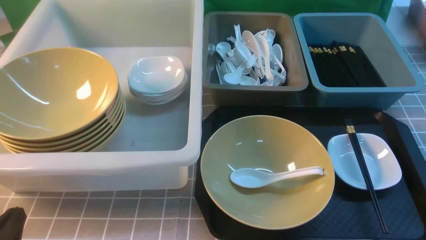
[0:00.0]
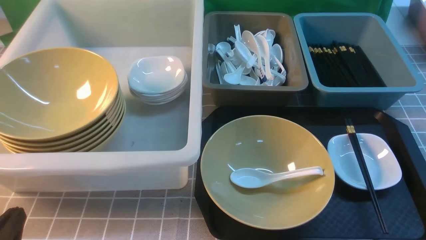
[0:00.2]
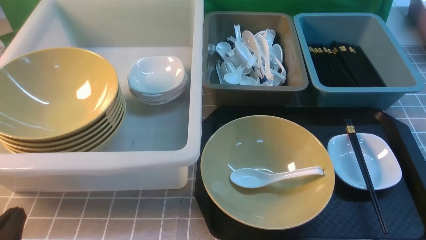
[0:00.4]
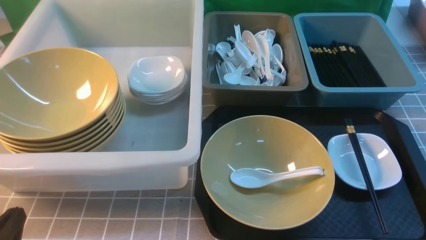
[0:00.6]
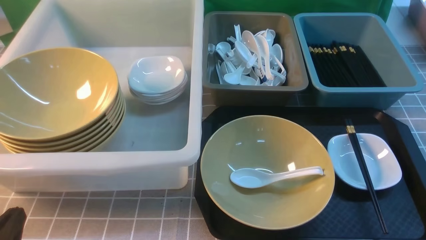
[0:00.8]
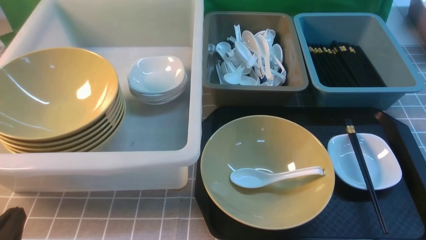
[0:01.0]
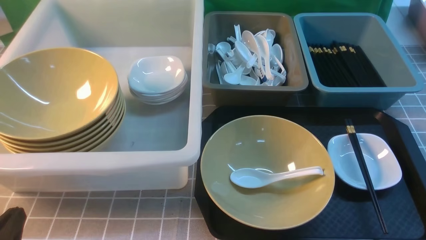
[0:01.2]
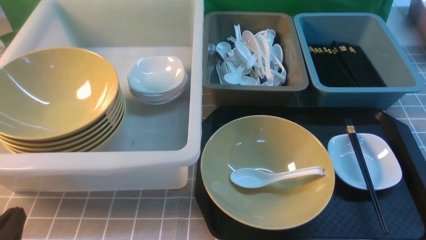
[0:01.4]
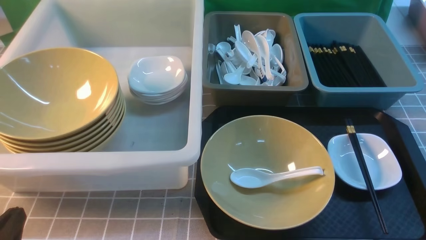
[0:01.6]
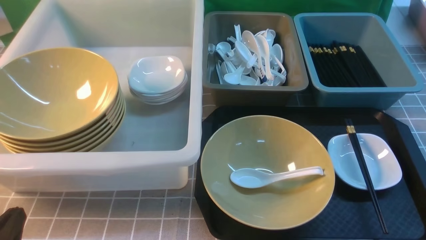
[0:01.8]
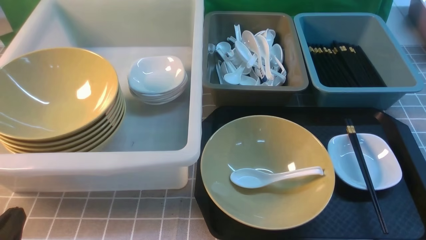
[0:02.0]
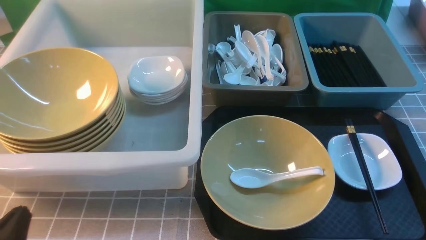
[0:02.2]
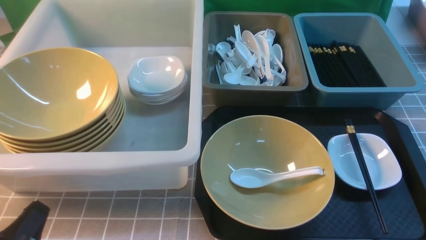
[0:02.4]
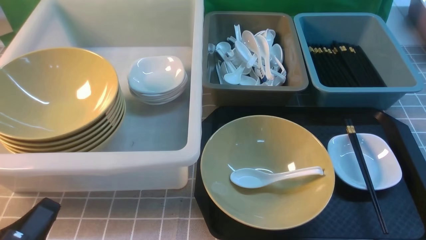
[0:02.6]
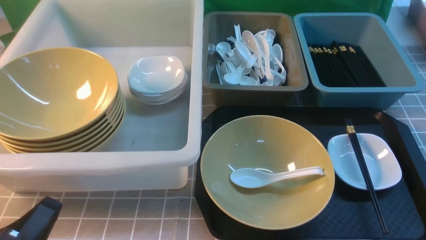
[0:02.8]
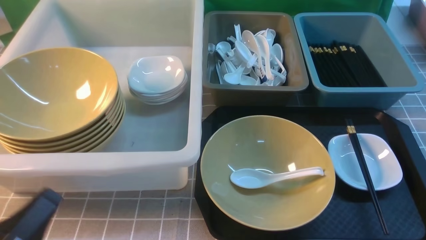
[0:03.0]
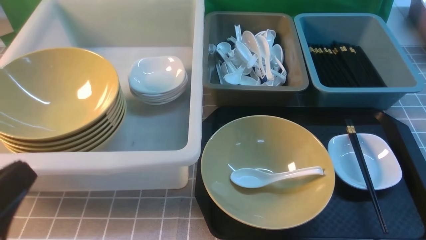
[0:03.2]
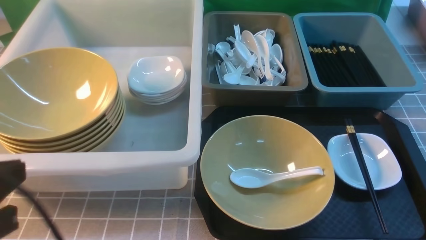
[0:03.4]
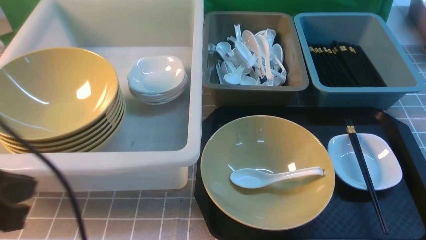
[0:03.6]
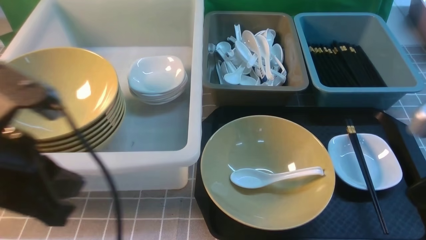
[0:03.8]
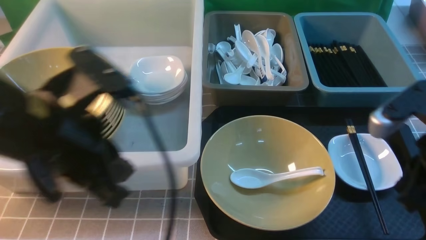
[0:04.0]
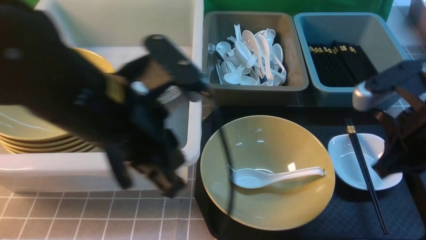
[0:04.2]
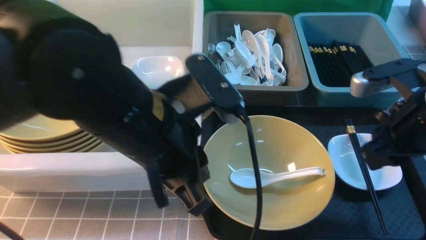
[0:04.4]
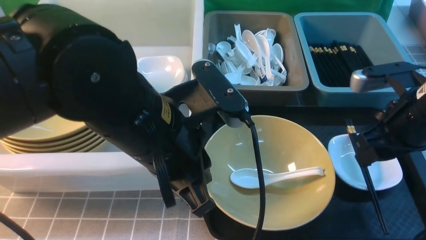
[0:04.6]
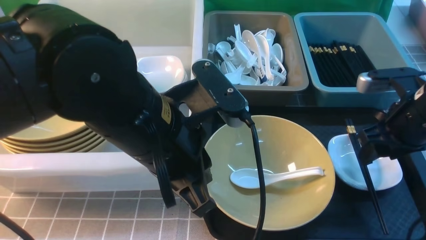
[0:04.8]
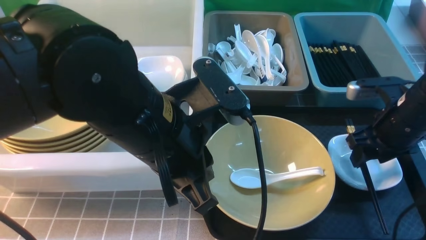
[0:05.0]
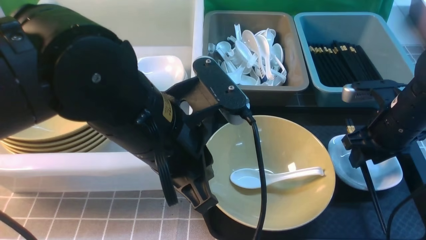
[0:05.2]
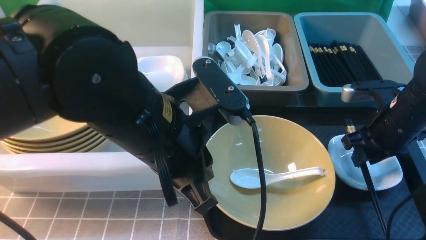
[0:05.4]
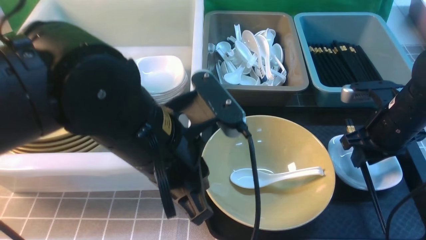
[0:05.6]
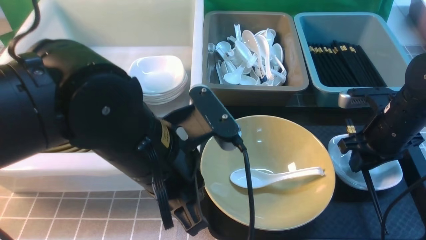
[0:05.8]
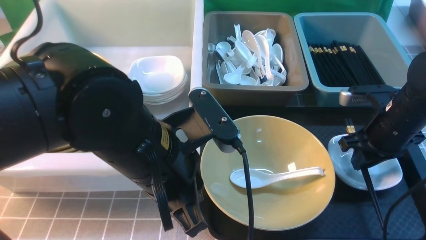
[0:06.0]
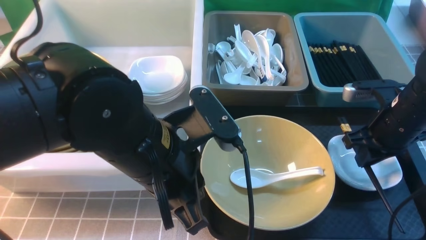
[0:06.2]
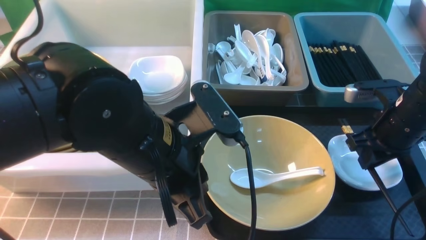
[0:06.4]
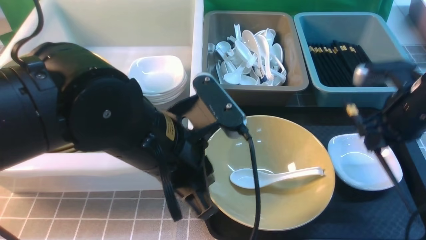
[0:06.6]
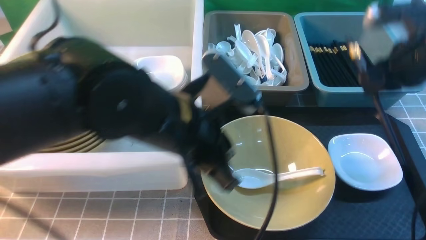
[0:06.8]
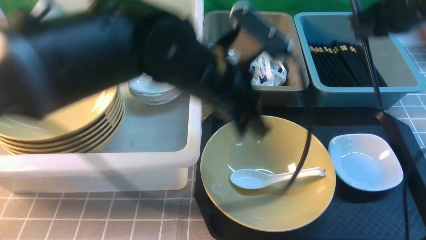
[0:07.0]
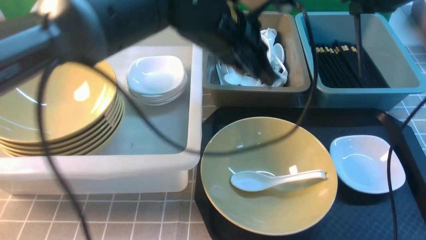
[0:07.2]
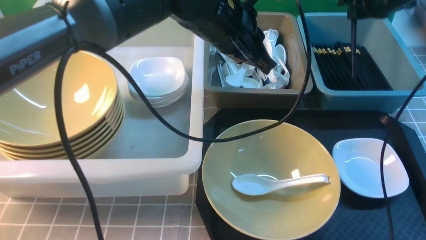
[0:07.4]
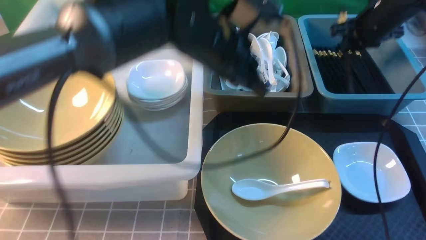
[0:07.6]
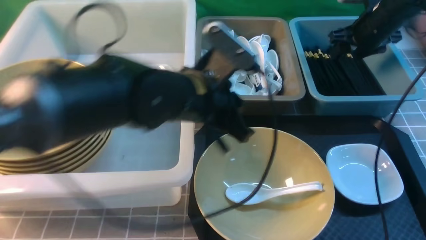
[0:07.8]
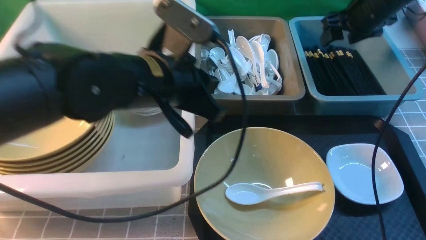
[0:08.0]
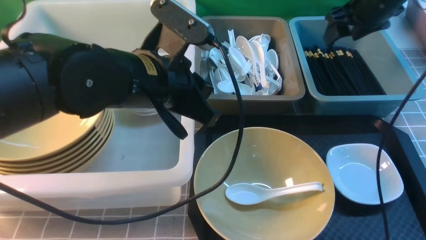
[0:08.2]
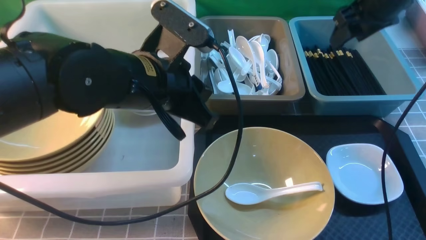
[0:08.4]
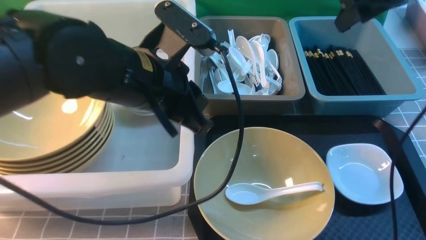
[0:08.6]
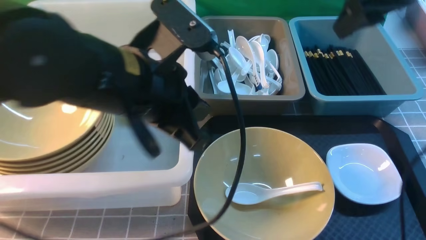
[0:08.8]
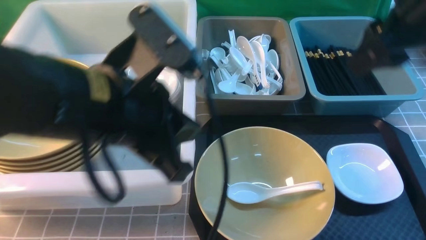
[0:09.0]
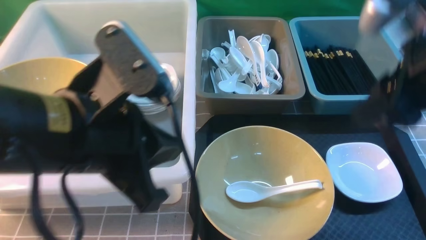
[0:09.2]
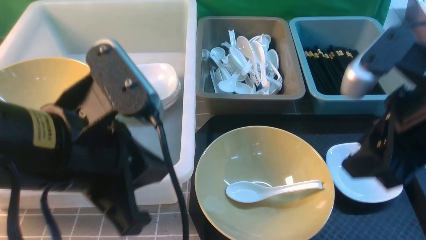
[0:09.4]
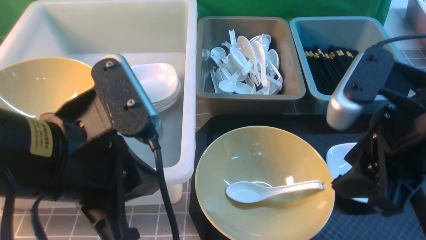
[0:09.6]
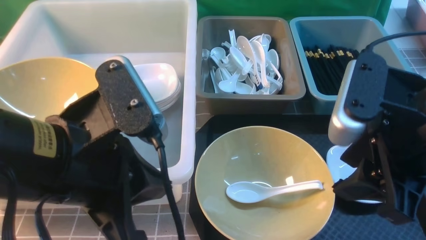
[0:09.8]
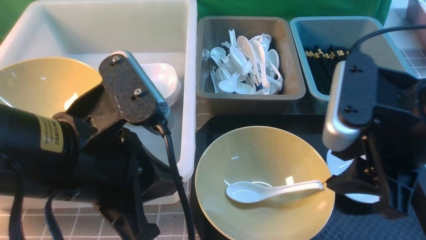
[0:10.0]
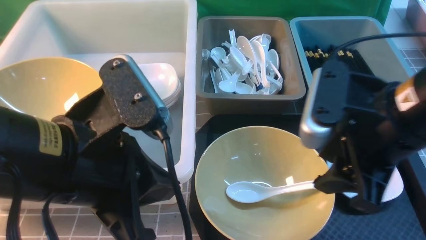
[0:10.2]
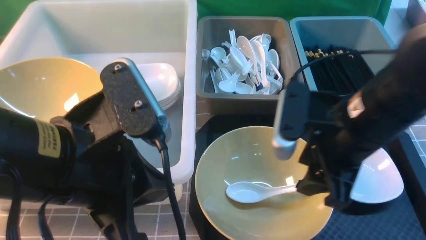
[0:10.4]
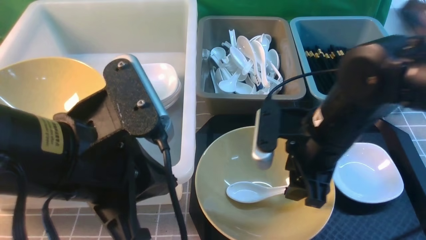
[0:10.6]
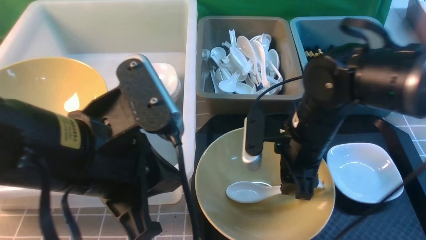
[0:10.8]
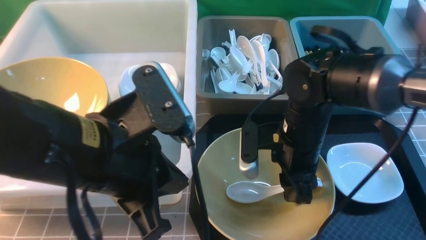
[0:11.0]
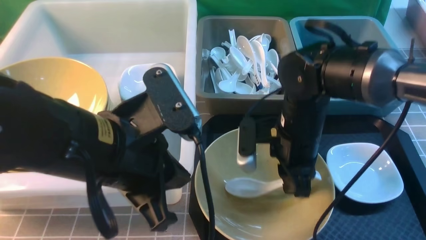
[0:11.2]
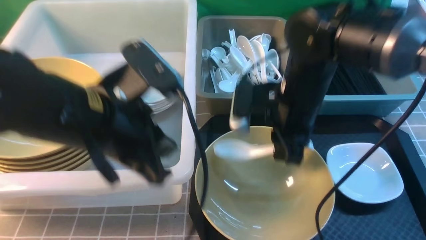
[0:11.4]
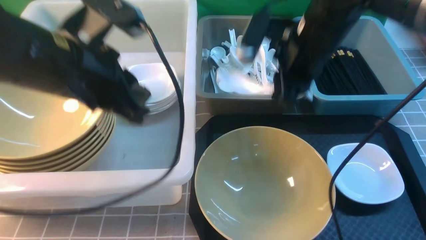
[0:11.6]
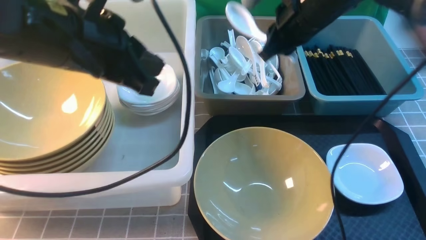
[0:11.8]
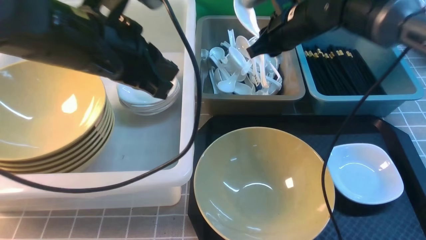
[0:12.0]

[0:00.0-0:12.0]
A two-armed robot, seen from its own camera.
Task of the whole recording: on grey table put chopsticks spoon bowls plates into blue grey white boxes.
Step, 0:00.0 to 0:06.4: use the right arm to grab the chopsticks.
Step, 0:06.6 to 0:07.8: use the right arm to put the chopsticks into the small storage box on the right.
Step, 0:08.0 to 0:11.6: use the right arm to grab the soup spoon in the middle.
0:00.0 to 0:01.6: The two grippers keep their place.
0:01.6 to 0:03.0: The left gripper shifts about 5 cm upward.
0:03.0 to 0:04.4: The left gripper travels to the right, forward and upward by approximately 25 cm. The right gripper goes about 20 cm forward, and closes and opens again.
0:04.4 to 0:06.0: The right gripper shifts some 10 cm downward and forward, and opens and closes again.
0:06.0 to 0:07.6: The right gripper is displaced forward and upward by about 20 cm; the left gripper moves forward, about 15 cm.
0:07.6 to 0:09.0: The right gripper moves backward and upward, approximately 30 cm. The left gripper heads backward and to the left, covering roughly 15 cm.
0:09.0 to 0:10.4: The right gripper is displaced downward and to the left by some 15 cm.
0:10.4 to 0:12.0: The left gripper moves forward, some 15 cm, while the right gripper goes some 20 cm forward.

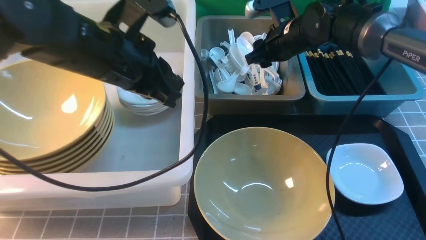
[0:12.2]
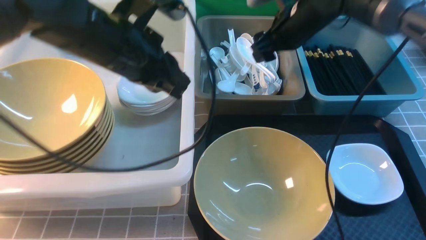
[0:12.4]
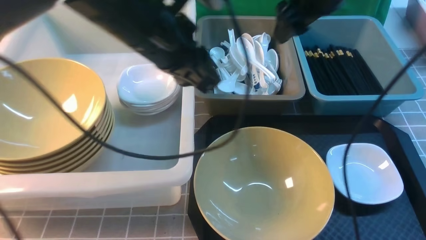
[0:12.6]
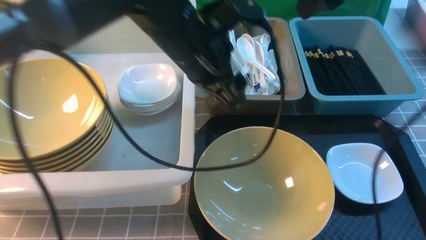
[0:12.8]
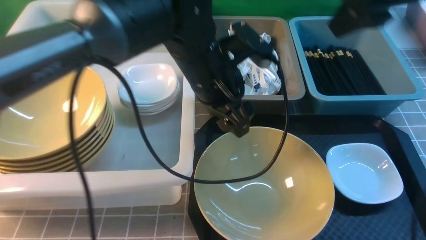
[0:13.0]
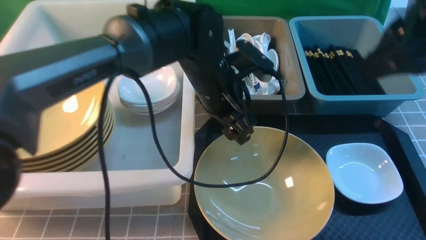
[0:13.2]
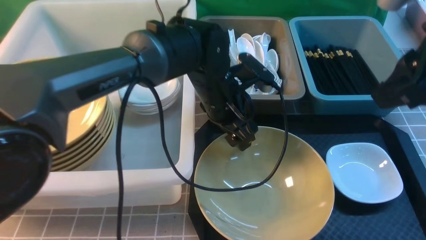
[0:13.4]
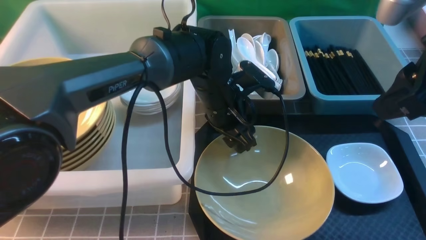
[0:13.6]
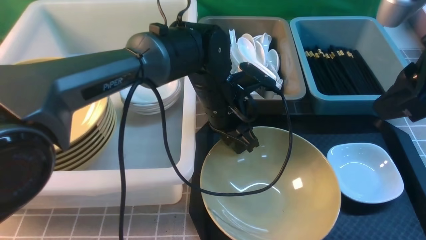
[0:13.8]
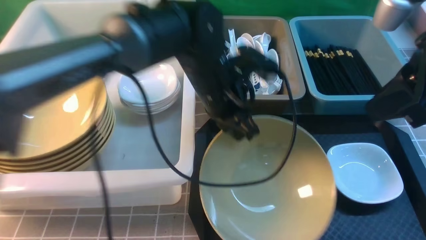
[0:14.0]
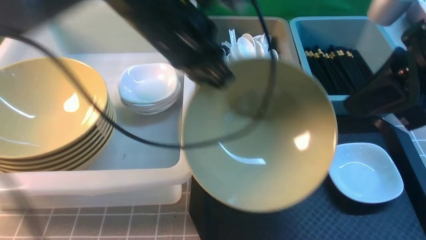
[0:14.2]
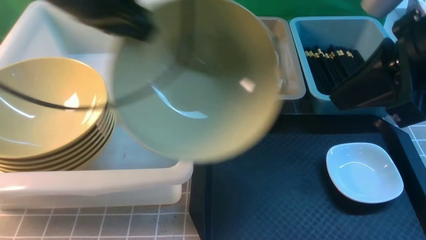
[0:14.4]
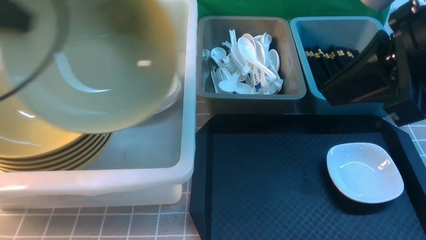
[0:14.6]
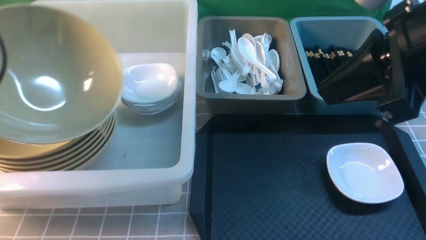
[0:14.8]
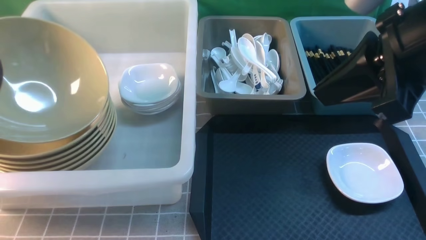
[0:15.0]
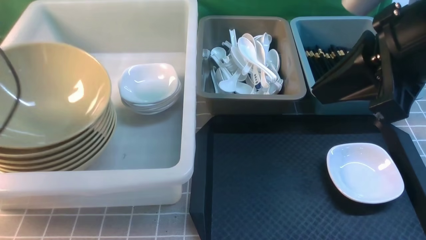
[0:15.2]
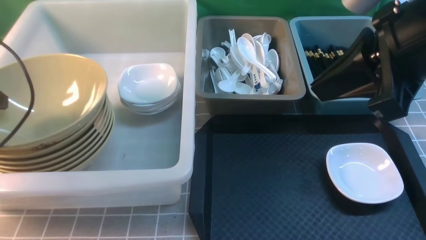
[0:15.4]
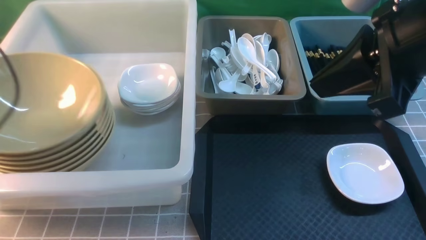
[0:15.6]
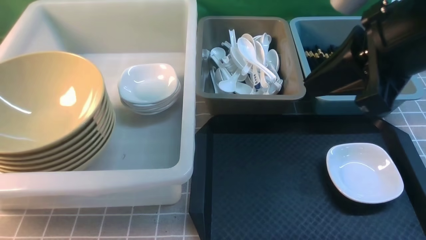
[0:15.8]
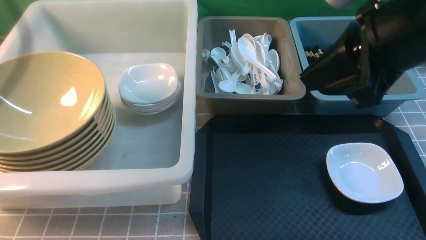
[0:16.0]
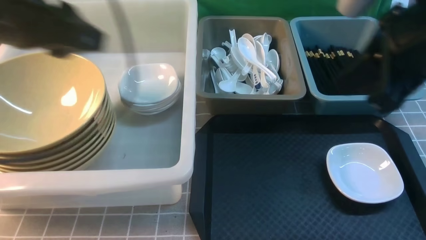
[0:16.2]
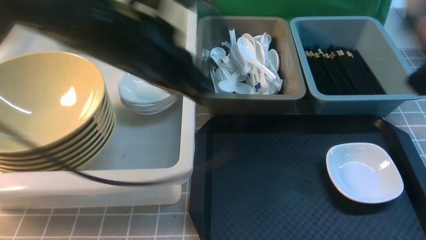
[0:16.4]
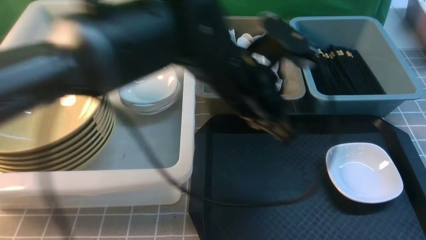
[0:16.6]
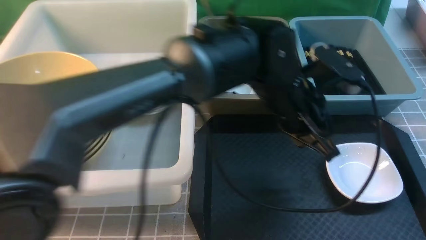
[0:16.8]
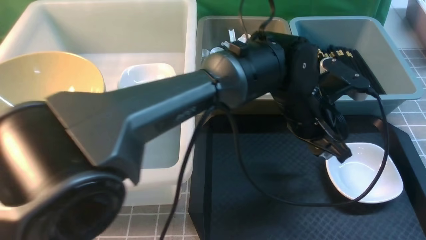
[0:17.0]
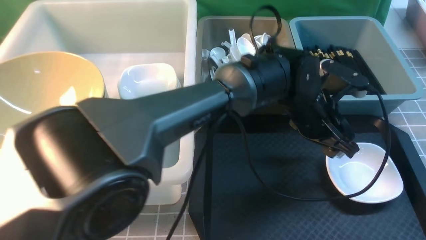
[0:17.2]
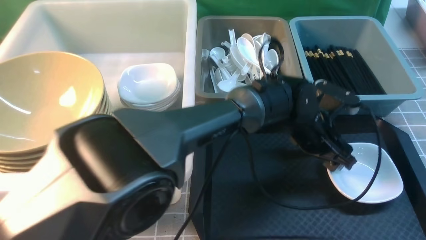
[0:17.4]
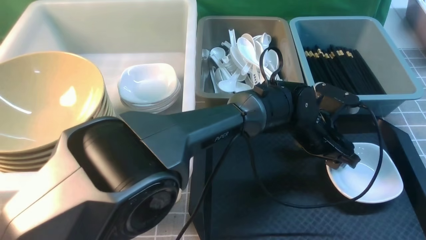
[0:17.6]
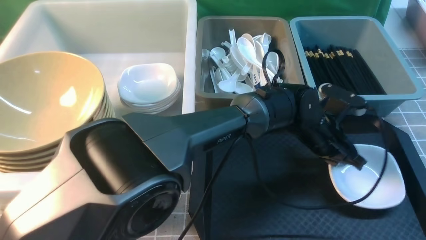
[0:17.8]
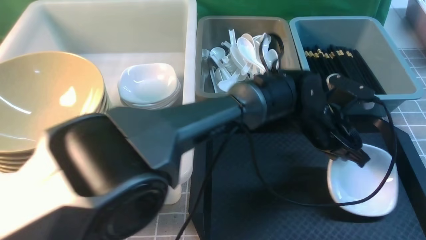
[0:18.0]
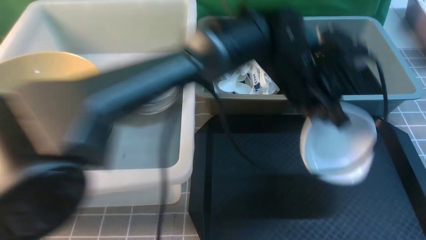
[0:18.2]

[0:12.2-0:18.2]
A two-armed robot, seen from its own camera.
Task of the whole recording: on grey table put chopsticks spoon bowls plates into blue grey white boxes.
Step, 0:12.6 to 0:13.8: use the left arm to grab the yellow noodle bowl on the left.
Step, 0:14.2 to 0:15.8: use the left arm to put the noodle bowl into the large storage box on the left.
Step, 0:16.0 to 0:17.8: use the left arm to grab the plate.
0:12.2 to 0:13.8: The left gripper moves to the right, downward and forward, some 15 cm, and opens, then closes once more; the right gripper goes approximately 30 cm backward and upward, and closes up.
0:13.8 to 0:15.2: The left gripper moves to the left, approximately 40 cm. Meanwhile the right gripper closes.
0:15.2 to 0:16.6: The right gripper goes roughly 10 cm to the right and backward; the left gripper is displaced to the right by about 40 cm, and opens and closes again.
0:16.6 to 0:18.2: The left gripper travels downward and back again, roughly 15 cm each way, and opens and closes again.
